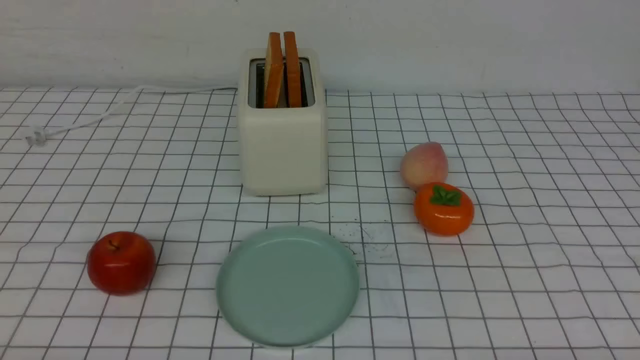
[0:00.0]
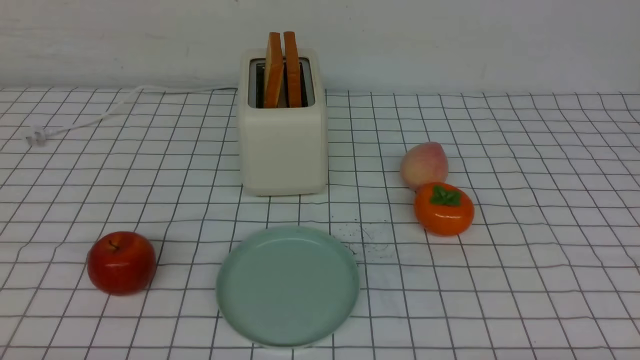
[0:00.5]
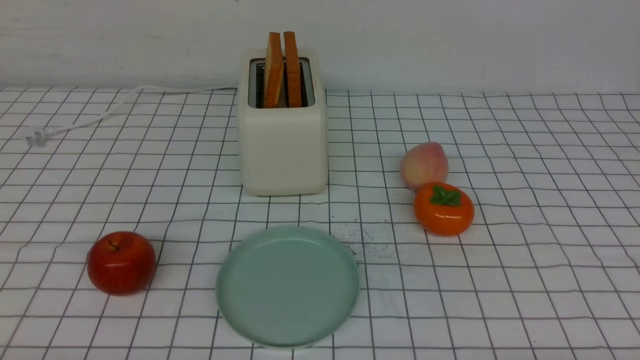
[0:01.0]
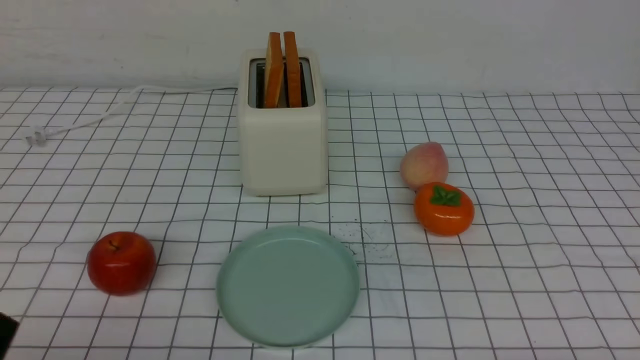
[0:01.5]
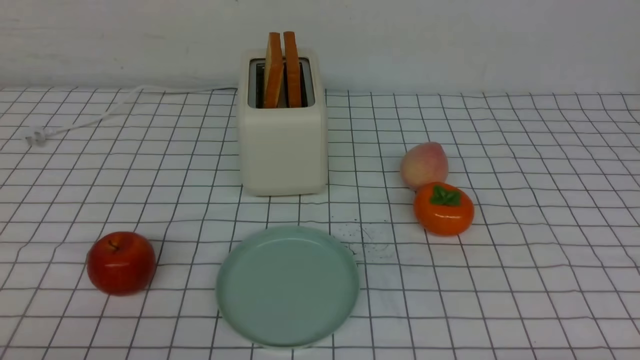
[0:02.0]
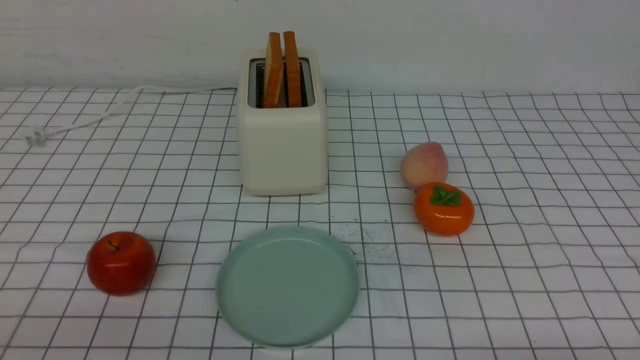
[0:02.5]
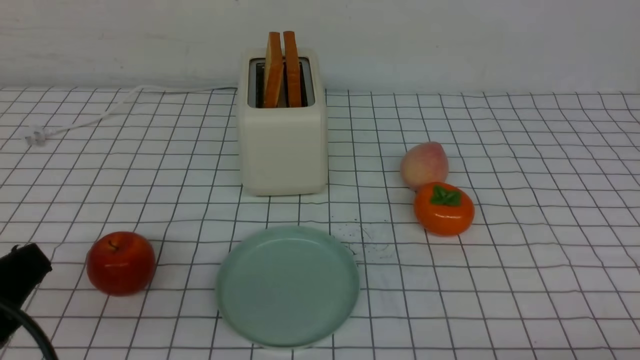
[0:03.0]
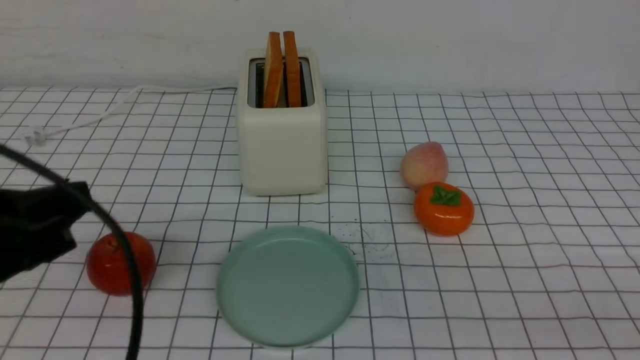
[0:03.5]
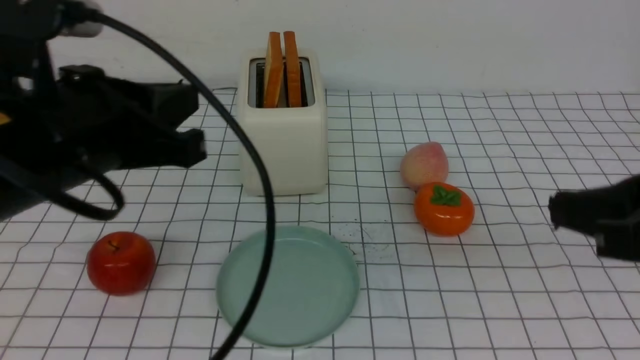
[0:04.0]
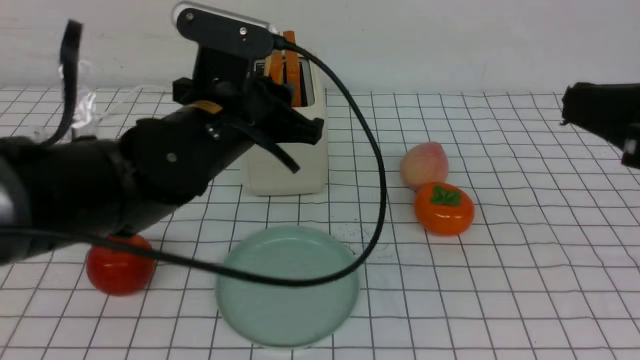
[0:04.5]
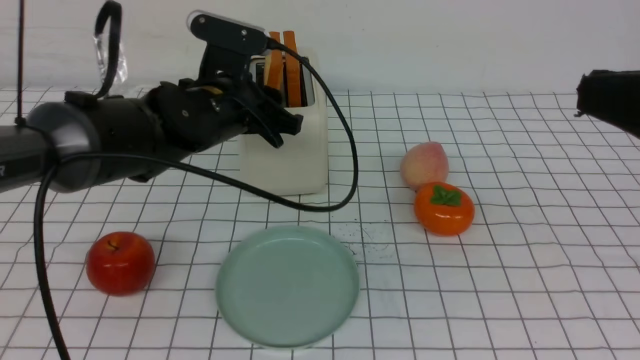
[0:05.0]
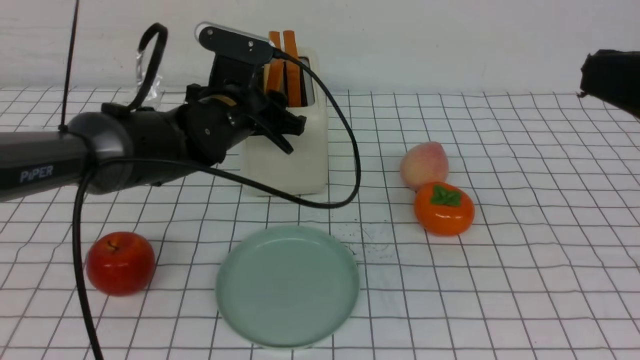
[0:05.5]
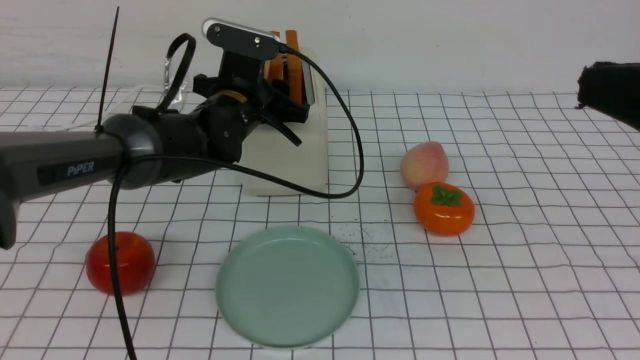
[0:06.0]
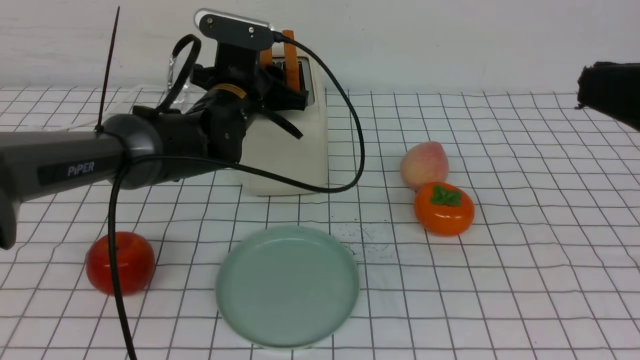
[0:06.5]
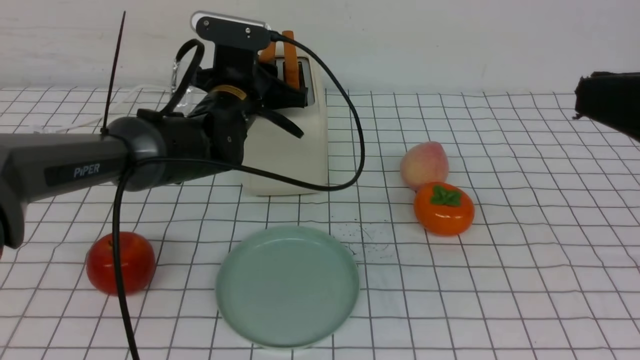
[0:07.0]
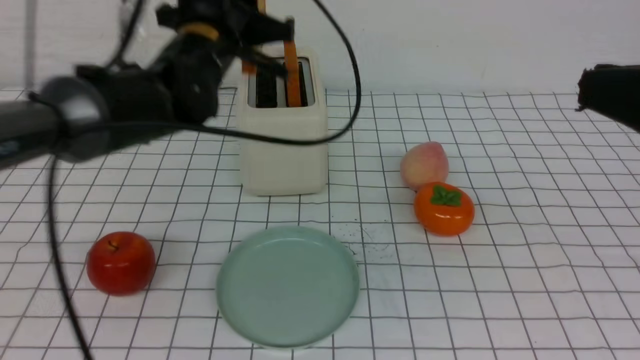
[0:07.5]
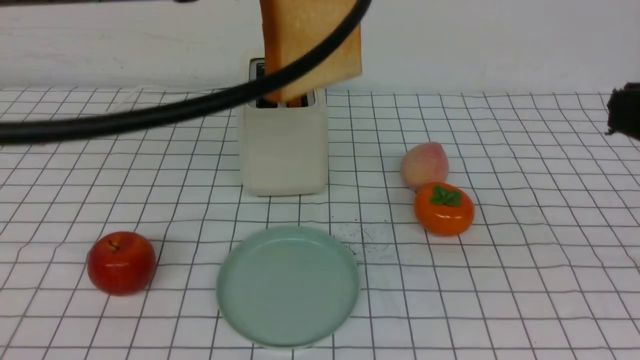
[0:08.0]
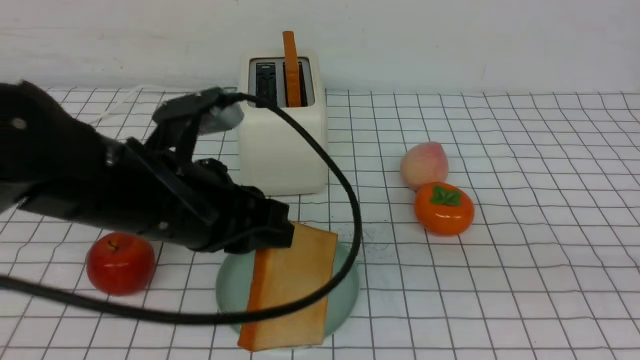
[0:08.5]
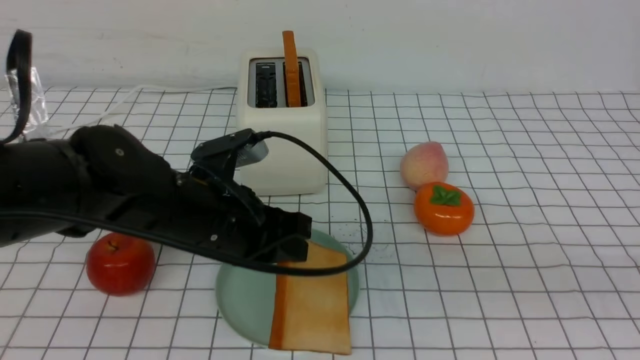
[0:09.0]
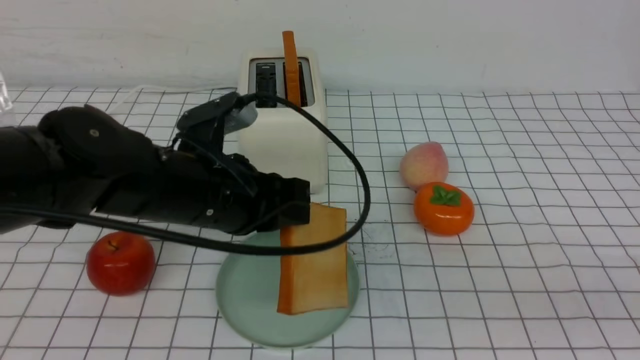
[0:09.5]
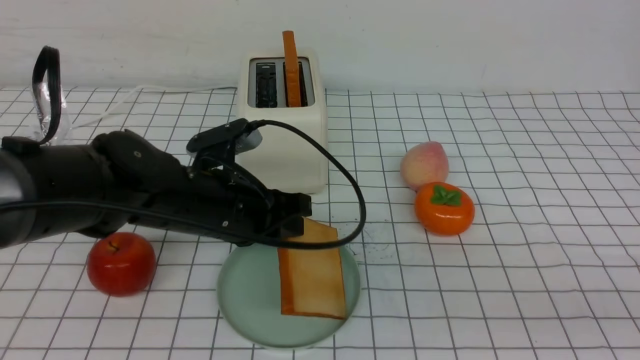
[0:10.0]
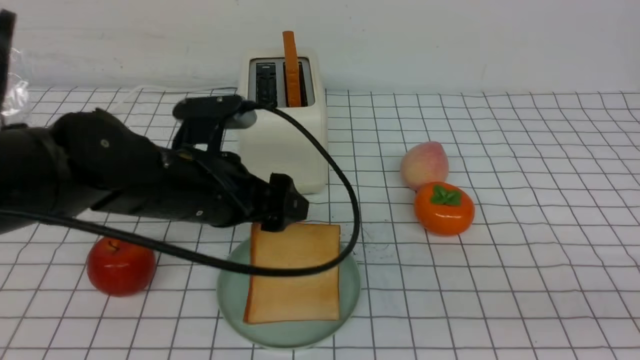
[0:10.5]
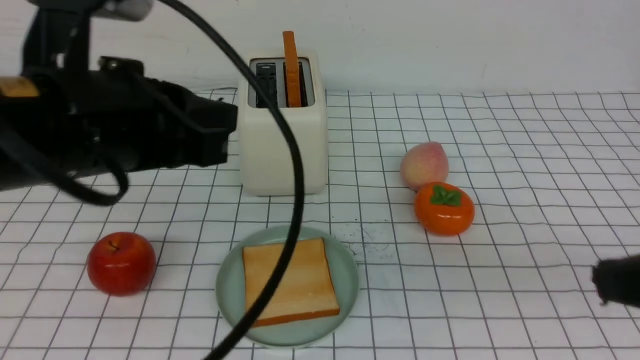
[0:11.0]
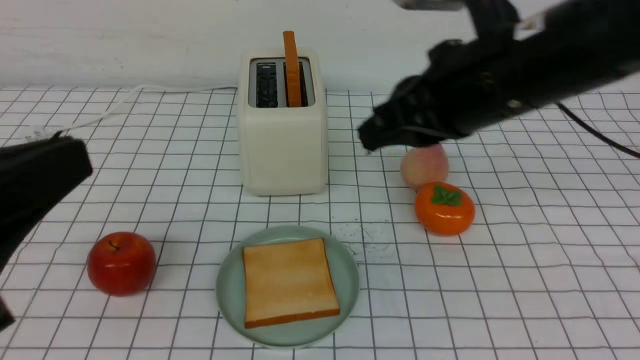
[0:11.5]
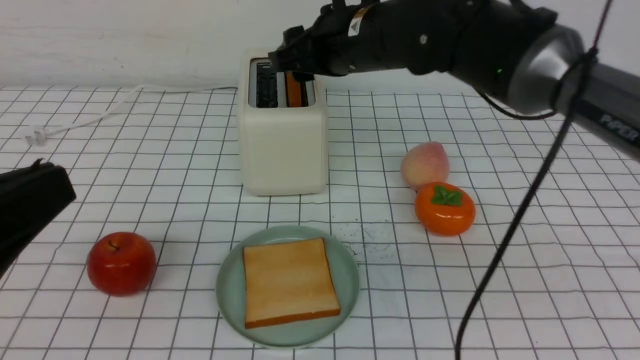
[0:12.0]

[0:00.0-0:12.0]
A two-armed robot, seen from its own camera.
Task of the whole recording: take toasted bread from bread machine on white checkered table place on plate.
Step, 0:00.0 to 0:07.0: use the left arm to take out a slice of bread.
Step, 0:07.5 to 0:10.5: use the left arm to put a slice of bread into the empty plate.
0:02.0 to 0:04.0: The left gripper goes approximately 25 cm forward, upward and to the right, while the right gripper is displaced upward, forward and to the left by about 25 cm, and closes up.
0:04.0 to 0:06.0: The right gripper is displaced upward by roughly 5 cm. Meanwhile the left gripper moves forward and downward, some 25 cm, and opens.
0:06.0 to 0:08.0: The left gripper goes approximately 25 cm upward and backward, and closes up.
0:08.0 to 0:10.0: The left gripper is displaced downward by approximately 20 cm. The right gripper moves downward, about 5 cm.
0:10.0 to 0:12.0: The right gripper goes approximately 40 cm forward and to the left, and opens up, while the left gripper is displaced backward, upward and to the left by about 30 cm, and closes its fingers.

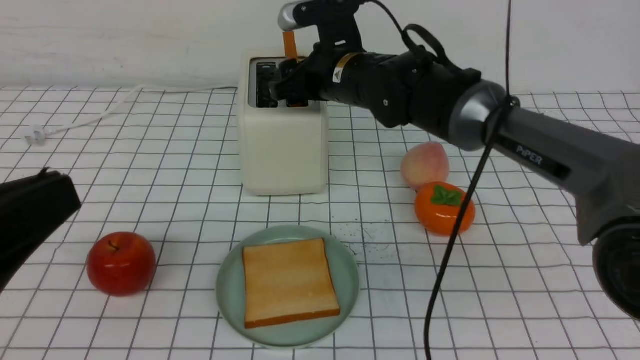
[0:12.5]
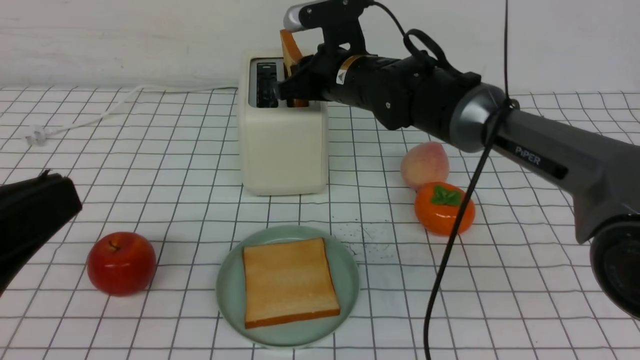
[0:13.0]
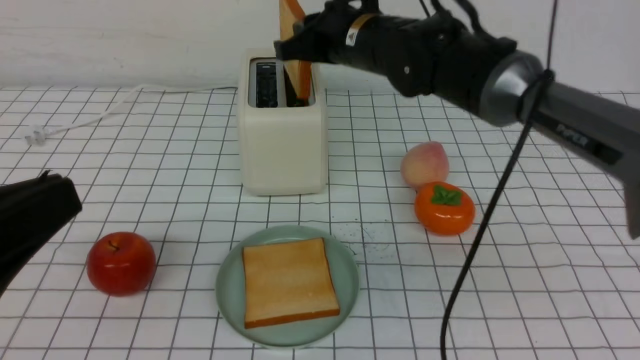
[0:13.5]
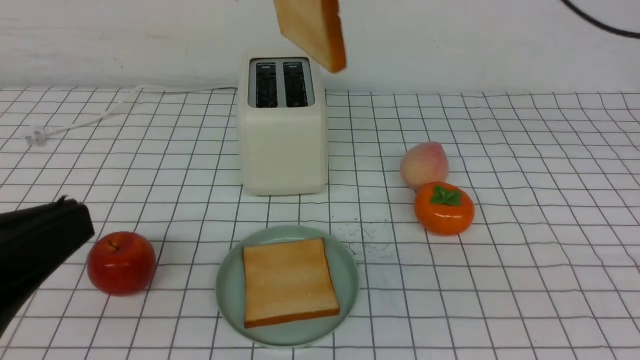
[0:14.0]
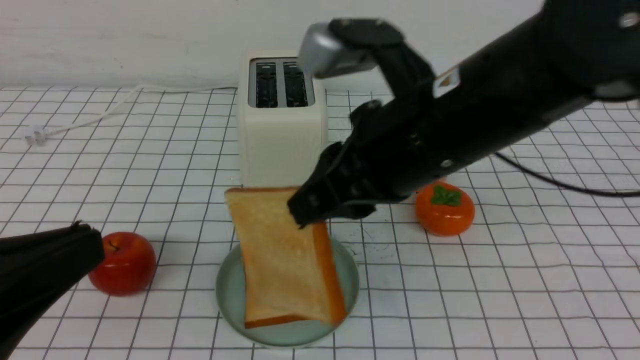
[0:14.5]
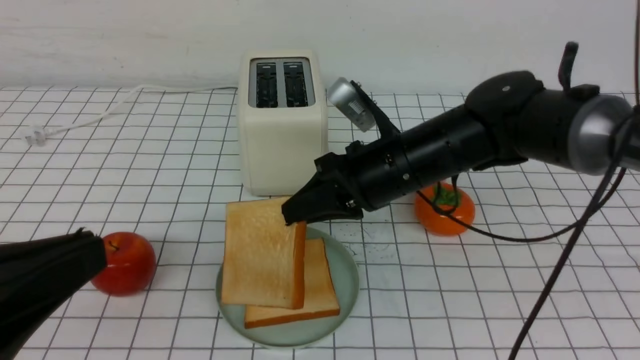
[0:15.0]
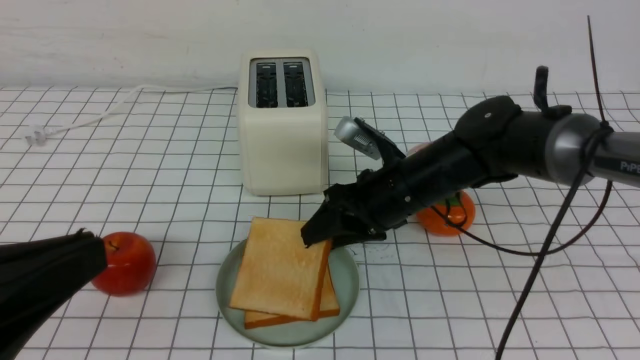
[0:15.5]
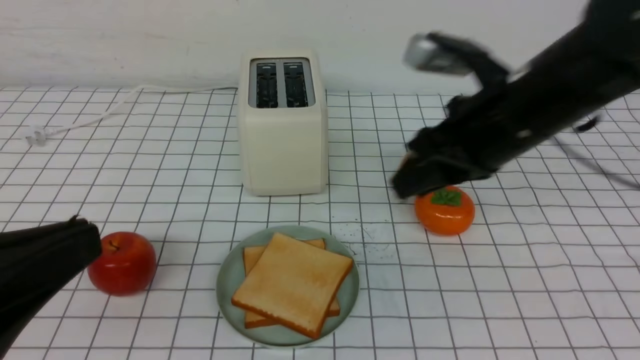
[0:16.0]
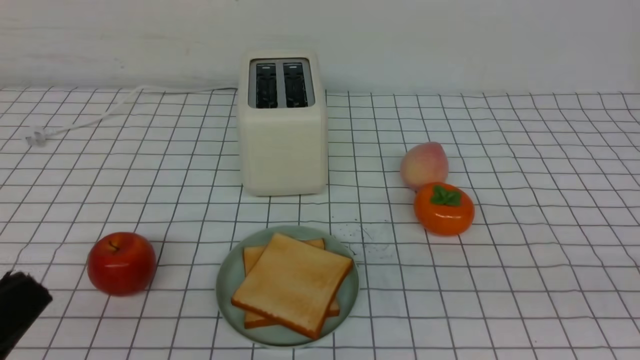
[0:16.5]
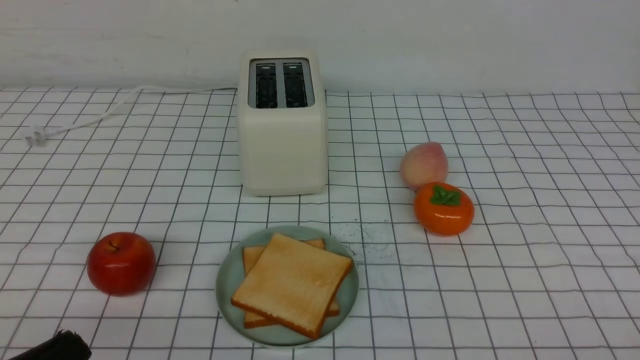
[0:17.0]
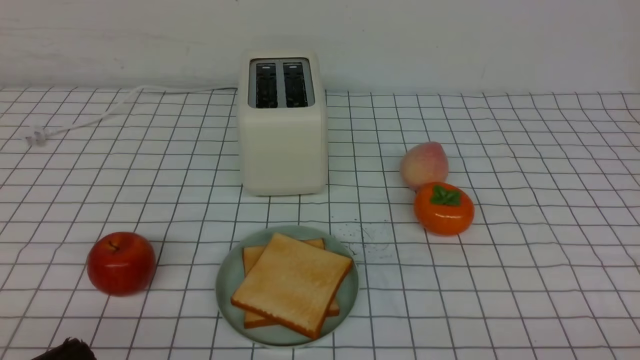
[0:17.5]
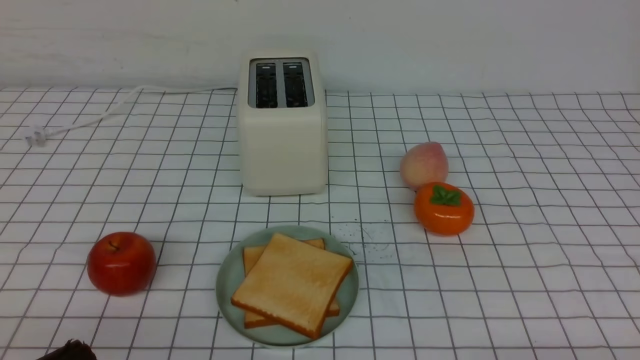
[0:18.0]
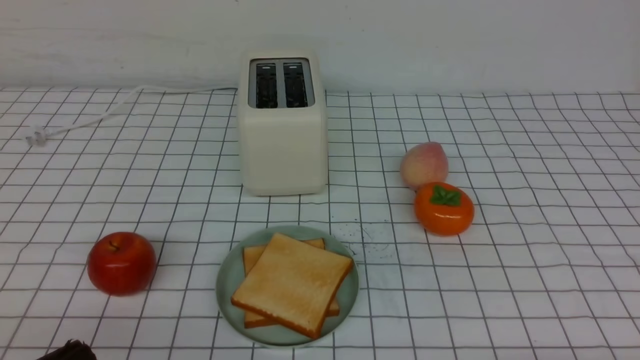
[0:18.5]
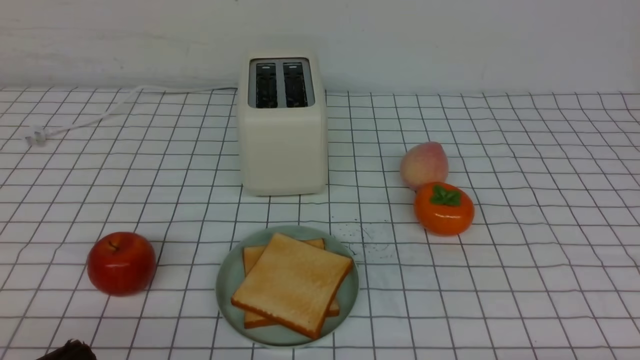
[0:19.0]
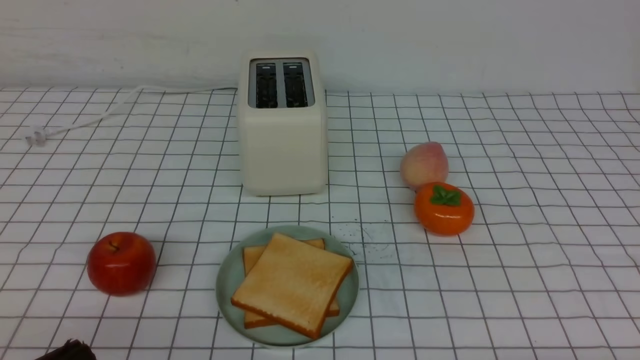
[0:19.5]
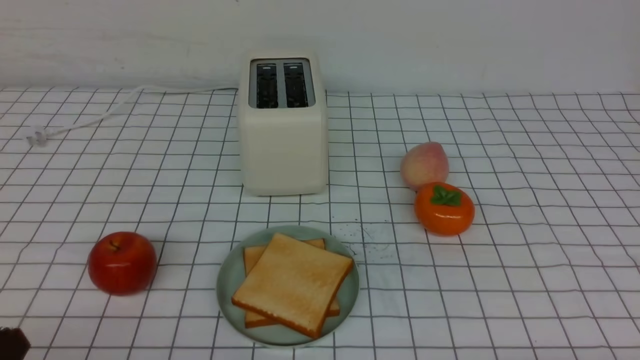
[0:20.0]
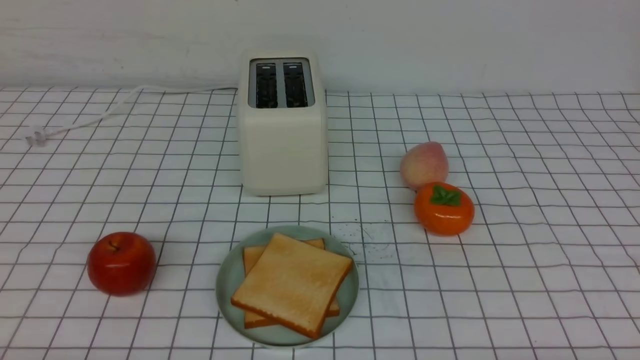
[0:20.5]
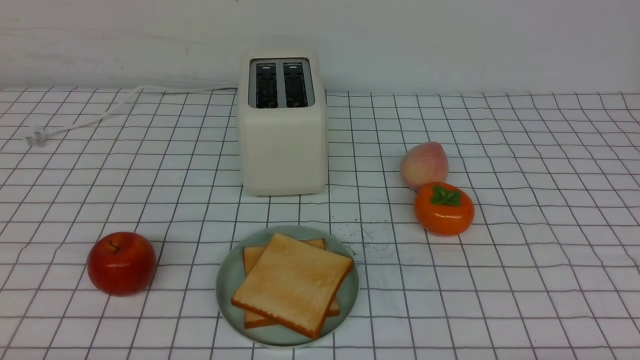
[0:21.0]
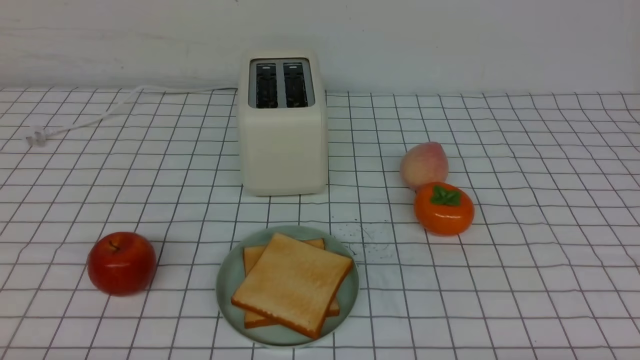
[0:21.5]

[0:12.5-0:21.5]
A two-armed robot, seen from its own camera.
Task of the whole recording: take toasted bread from bread machine on white checkered table place on plate.
Step, 0:14.0 to 0:15.5: use the right arm to put a slice of bread into the plate.
0:12.5 to 0:14.5: The right gripper goes some 20 cm backward, and closes up.
0:14.5 to 0:17.0: The left gripper is displaced downward by about 10 cm; the right gripper heads backward and to the right, covering roughly 35 cm, and opens and closes again.
0:19.5 to 0:21.5: The left gripper goes approximately 5 cm downward.
